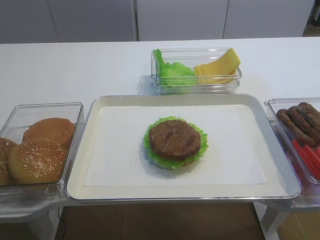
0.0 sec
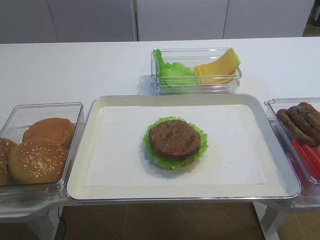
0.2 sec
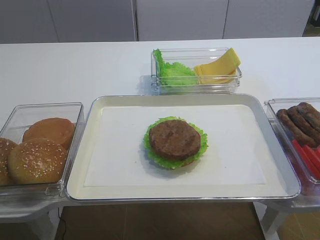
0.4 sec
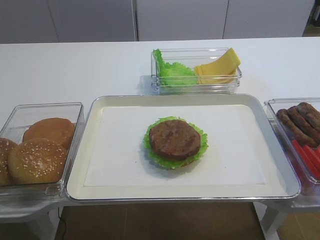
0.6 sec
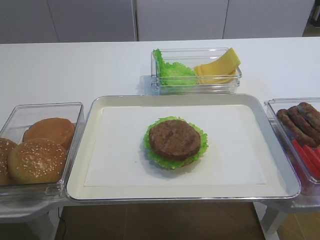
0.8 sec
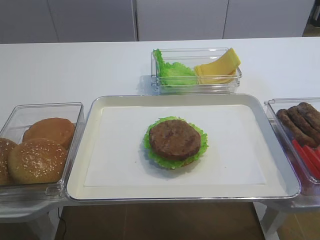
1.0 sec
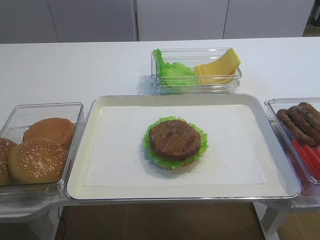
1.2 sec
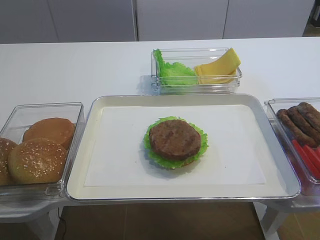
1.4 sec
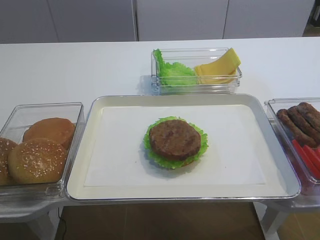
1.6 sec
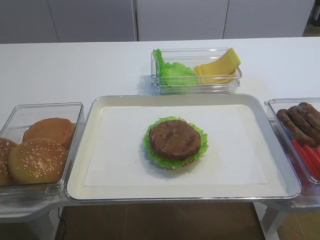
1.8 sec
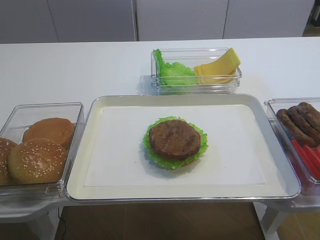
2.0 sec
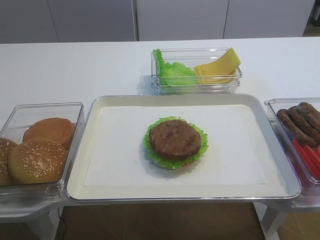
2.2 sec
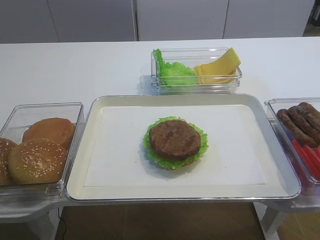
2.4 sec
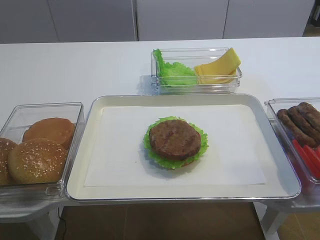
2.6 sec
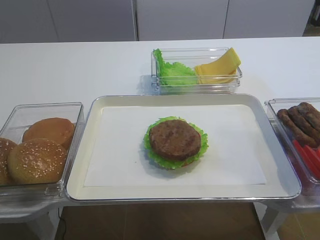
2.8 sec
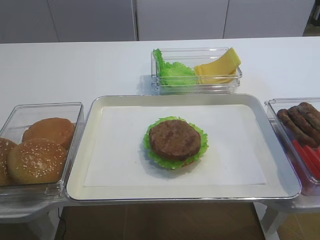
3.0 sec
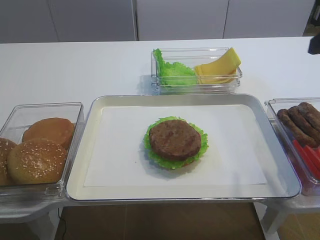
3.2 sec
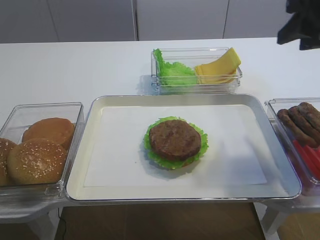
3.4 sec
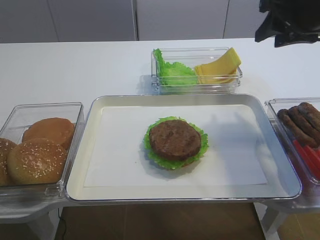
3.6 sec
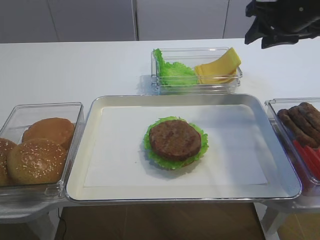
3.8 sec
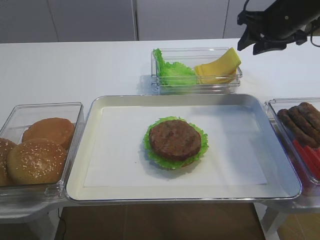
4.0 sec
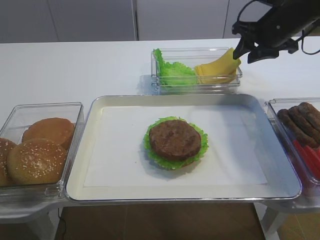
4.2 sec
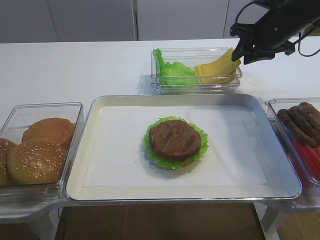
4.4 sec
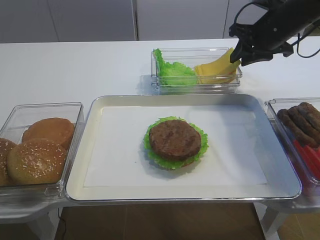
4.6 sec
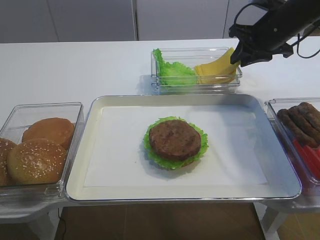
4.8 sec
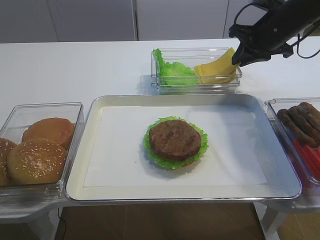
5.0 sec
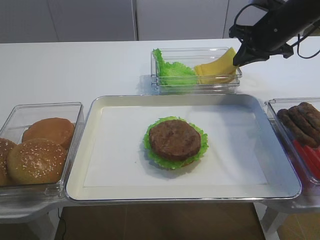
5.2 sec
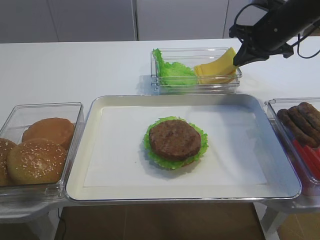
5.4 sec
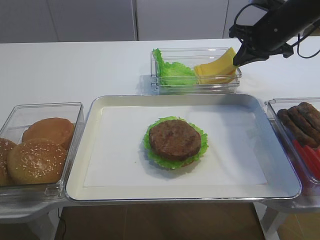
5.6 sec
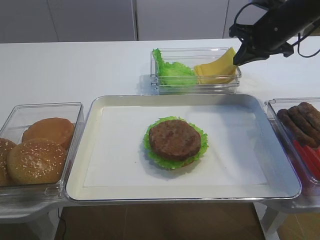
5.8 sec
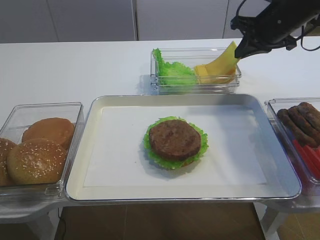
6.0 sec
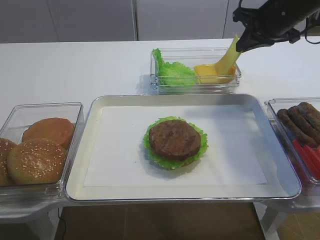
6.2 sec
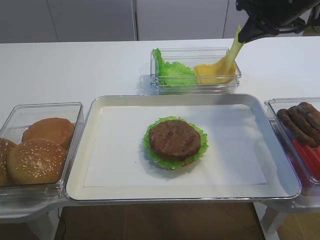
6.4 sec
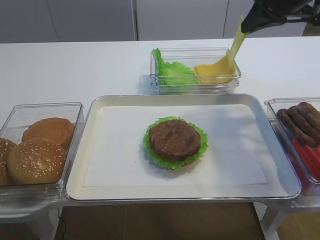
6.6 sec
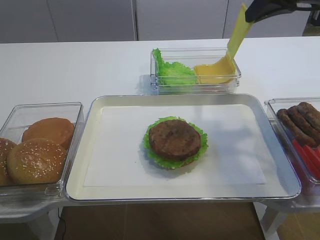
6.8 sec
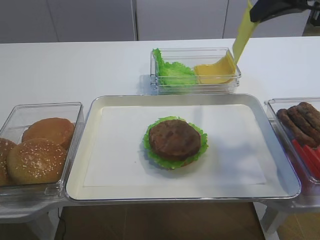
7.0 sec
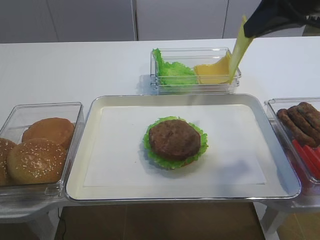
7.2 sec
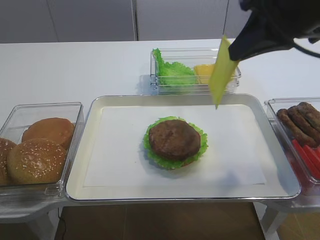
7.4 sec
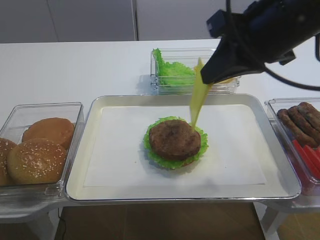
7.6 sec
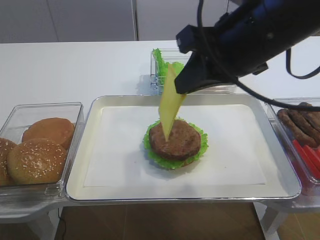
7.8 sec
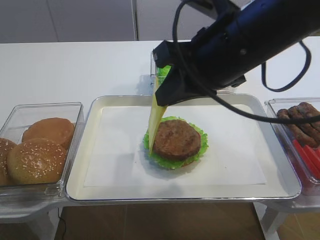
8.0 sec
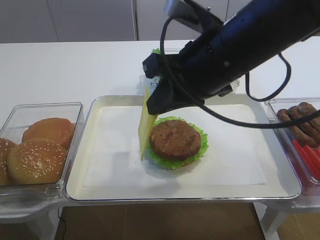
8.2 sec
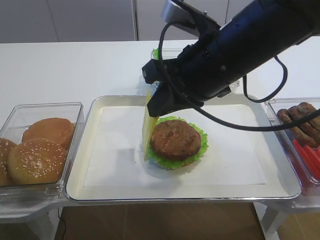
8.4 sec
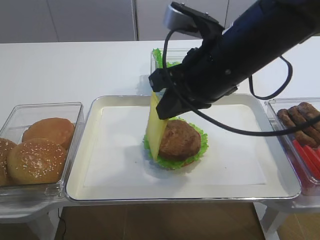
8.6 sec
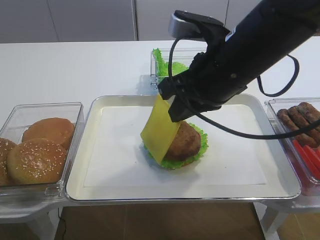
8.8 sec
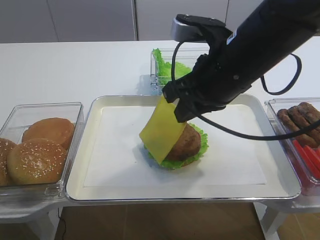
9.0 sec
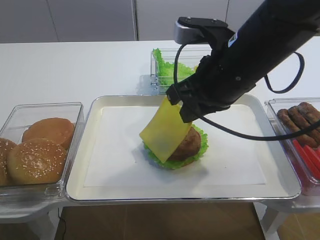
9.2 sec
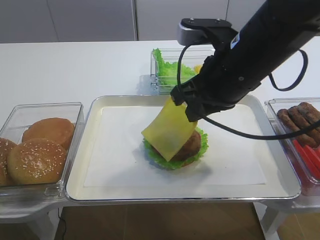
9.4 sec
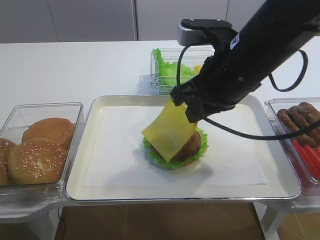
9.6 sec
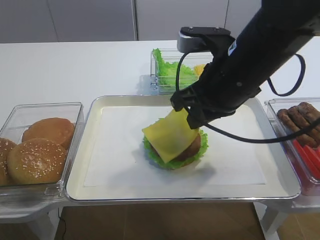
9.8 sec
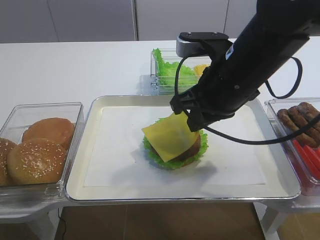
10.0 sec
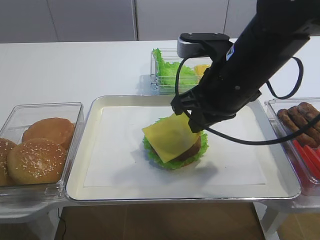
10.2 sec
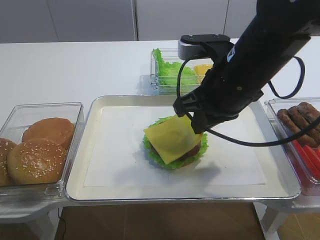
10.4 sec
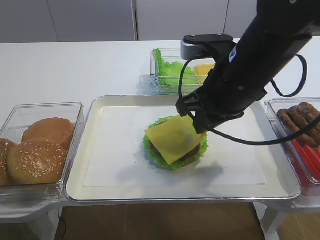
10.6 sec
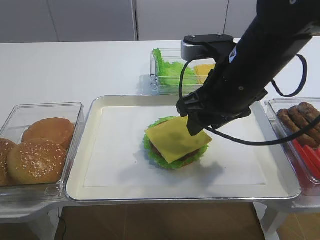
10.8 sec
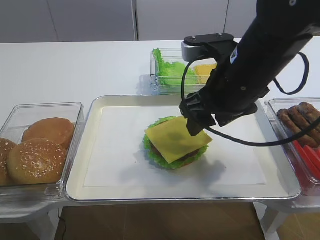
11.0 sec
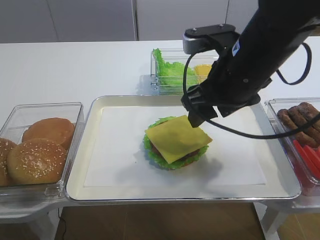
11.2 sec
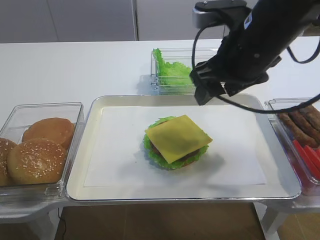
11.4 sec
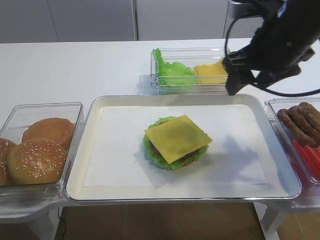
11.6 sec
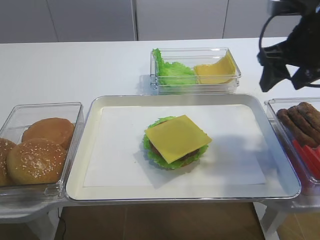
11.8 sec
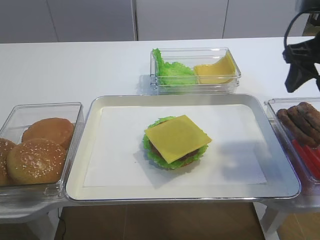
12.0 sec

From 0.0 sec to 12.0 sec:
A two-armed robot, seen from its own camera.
Step, from 0.0 sec to 6.0 sec: Pick up the cheese slice with the right gripper.
Step, from 6.2 sec to 11.0 sec: Place the cheese slice on the cutlet with the right gripper.
From 3.0 sec to 4.4 sec: The right gripper goes some 30 cm forward.
From 4.4 sec to 6.0 sec: The right gripper closes its fingers.
From 6.0 sec to 7.6 sec: The right gripper moves backward, upward and to the left, approximately 20 cm.
From 7.6 sec to 9.0 sec: The right gripper shifts some 10 cm downward and to the left.
From 9.0 sec to 10.4 sec: The grippers move only a little.
From 10.4 sec to 12.0 sec: The right gripper travels to the right by some 15 cm, and opens.

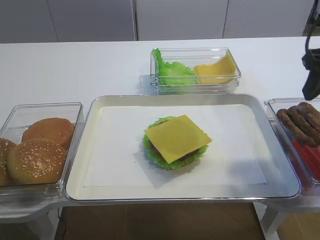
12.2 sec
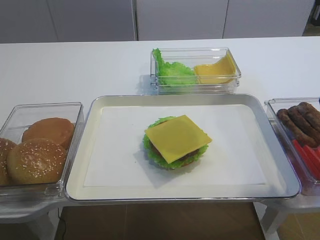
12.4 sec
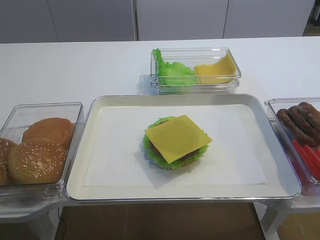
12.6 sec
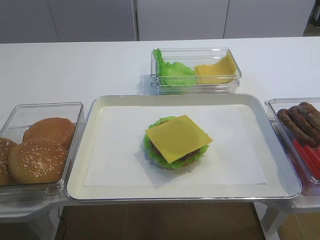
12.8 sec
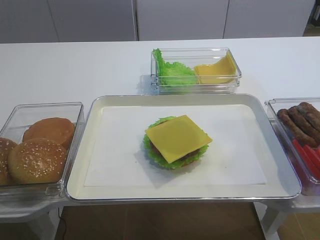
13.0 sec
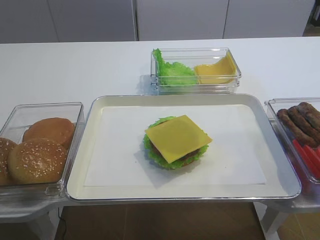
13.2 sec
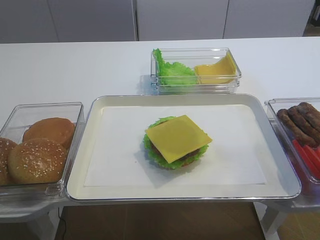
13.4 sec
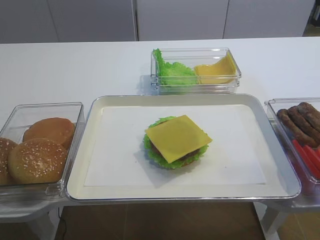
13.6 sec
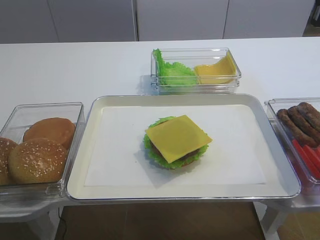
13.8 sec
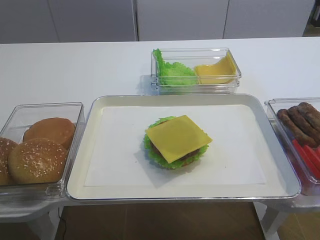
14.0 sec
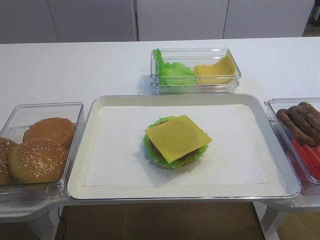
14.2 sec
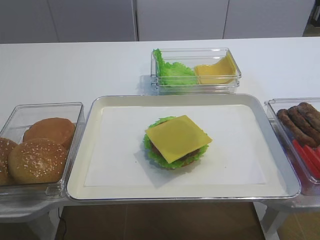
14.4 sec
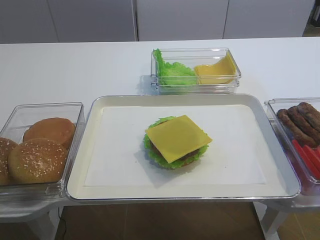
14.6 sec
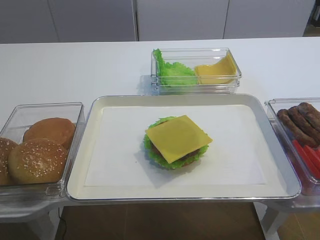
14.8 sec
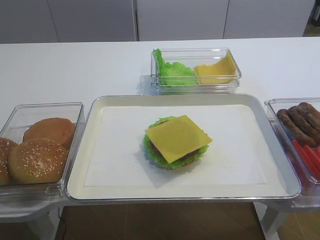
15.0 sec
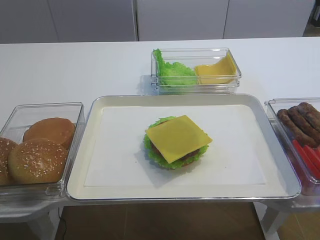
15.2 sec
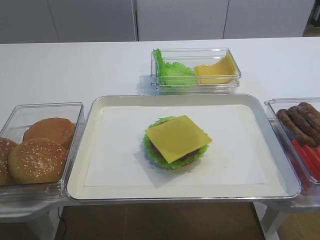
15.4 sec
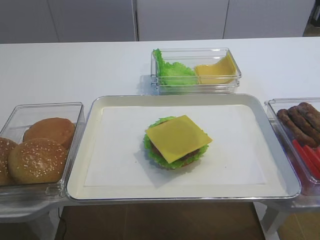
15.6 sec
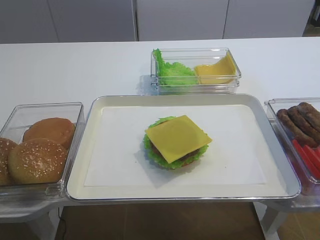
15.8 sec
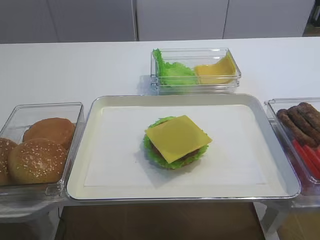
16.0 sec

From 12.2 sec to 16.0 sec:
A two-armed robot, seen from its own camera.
From 12.2 sec to 13.4 sec: The right gripper moves backward, approximately 25 cm.
From 14.8 sec to 16.0 sec: Both grippers stay about where they are.

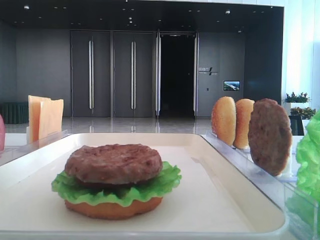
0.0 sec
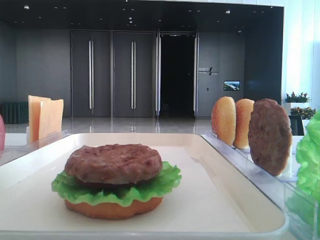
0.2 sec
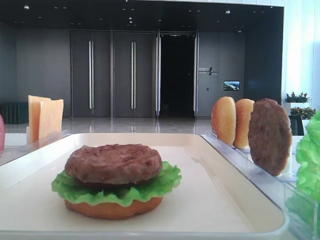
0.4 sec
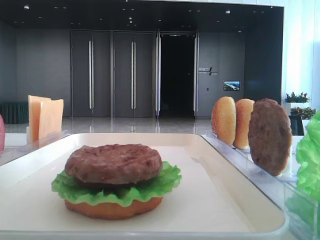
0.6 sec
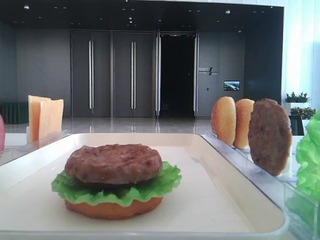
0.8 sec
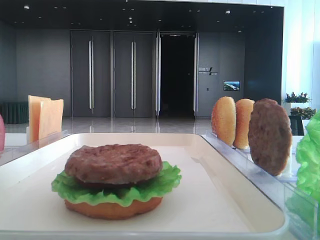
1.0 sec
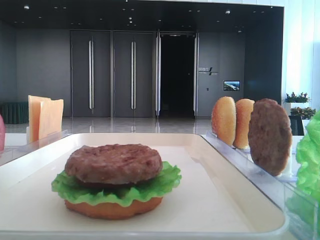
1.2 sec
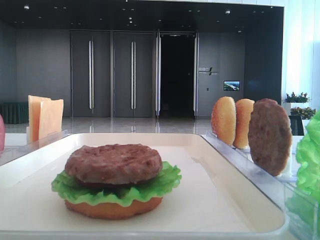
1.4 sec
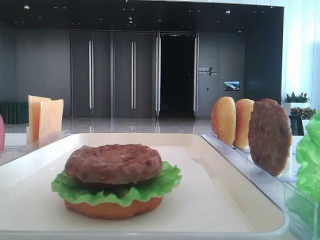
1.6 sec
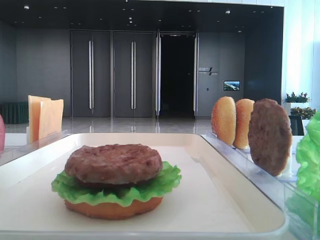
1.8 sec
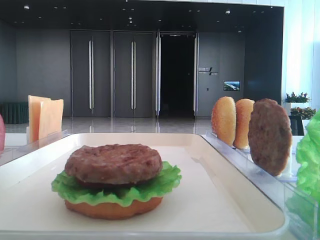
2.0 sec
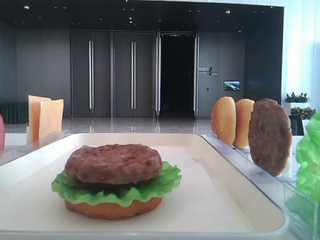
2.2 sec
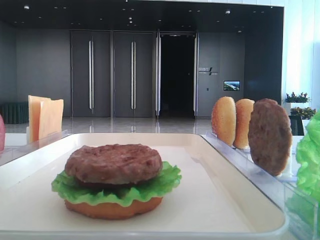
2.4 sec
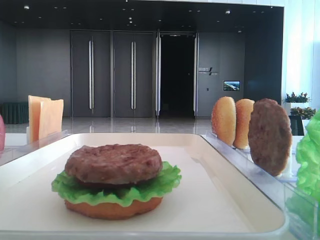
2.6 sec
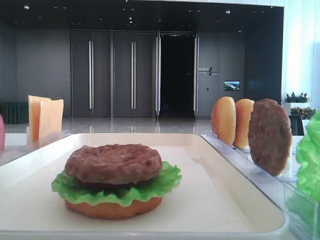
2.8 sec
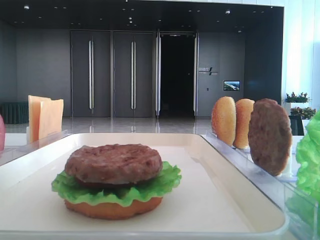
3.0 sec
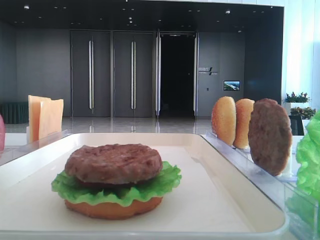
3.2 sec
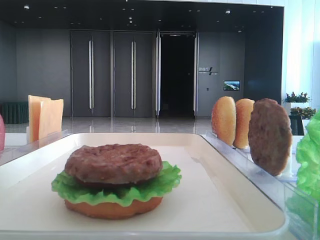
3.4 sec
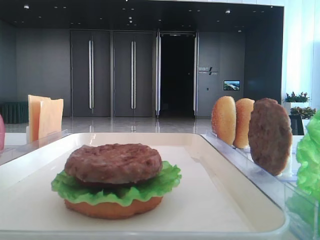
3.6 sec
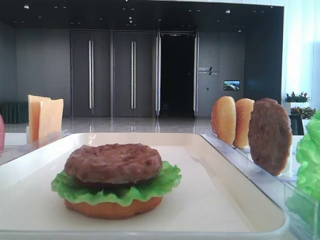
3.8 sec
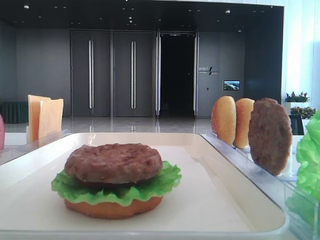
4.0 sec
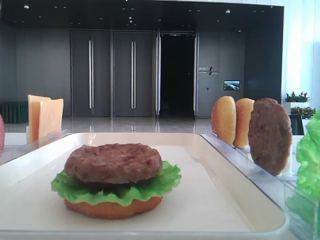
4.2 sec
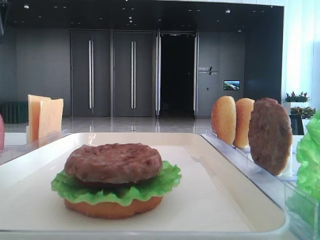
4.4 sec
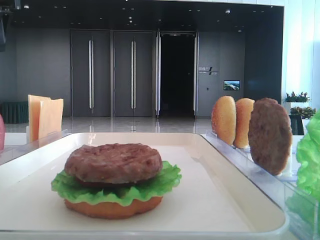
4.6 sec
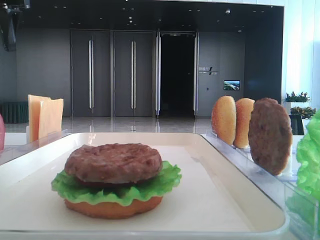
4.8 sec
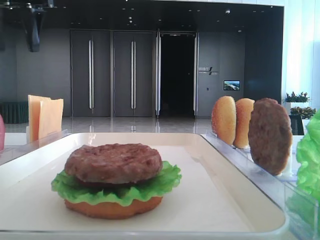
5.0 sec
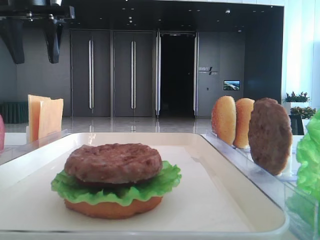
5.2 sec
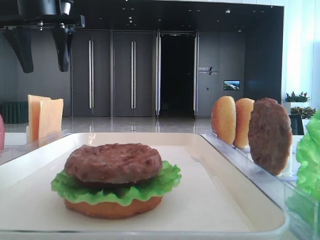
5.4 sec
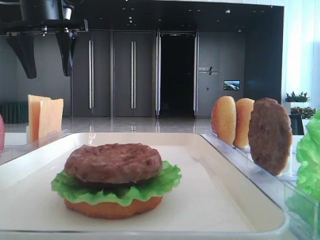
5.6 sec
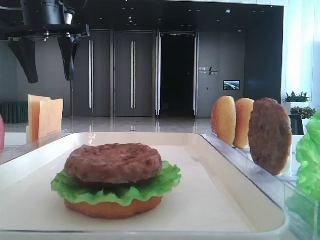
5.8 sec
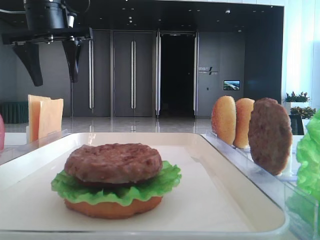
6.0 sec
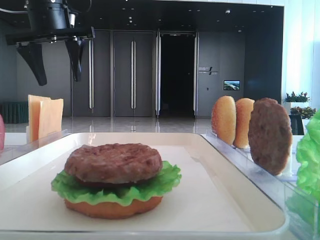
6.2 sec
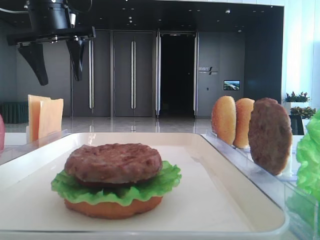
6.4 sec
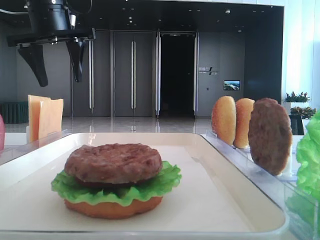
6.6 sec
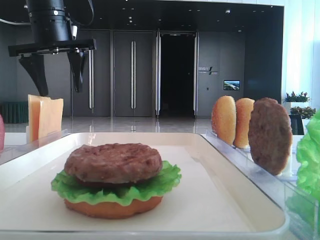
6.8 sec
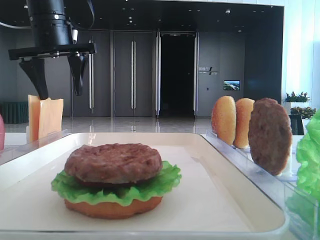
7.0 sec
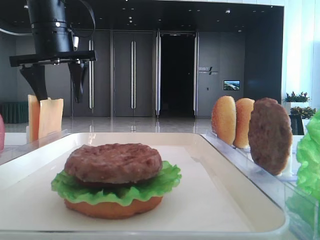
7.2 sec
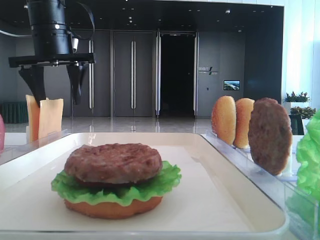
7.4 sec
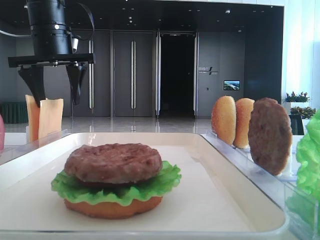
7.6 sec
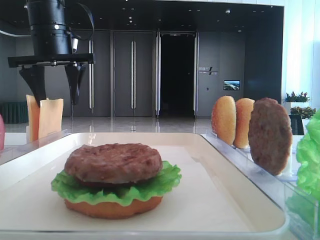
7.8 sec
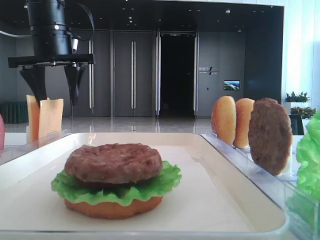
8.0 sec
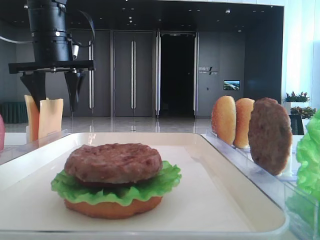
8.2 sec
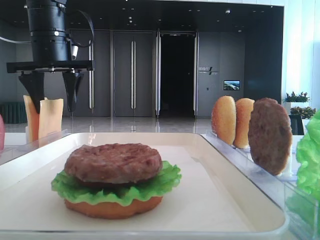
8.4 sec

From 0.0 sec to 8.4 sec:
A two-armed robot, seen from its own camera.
From 2.8 sec to 4.2 sec: The left gripper goes roughly 40 cm forward.
From 4.2 sec to 5.6 sec: The left gripper heads to the right and downward, covering approximately 15 cm.
From 5.6 sec to 7.0 sec: The grippers stay close to where they were, moving slightly.
From 7.0 sec to 8.4 sec: There are only small adjustments of the grippers.
